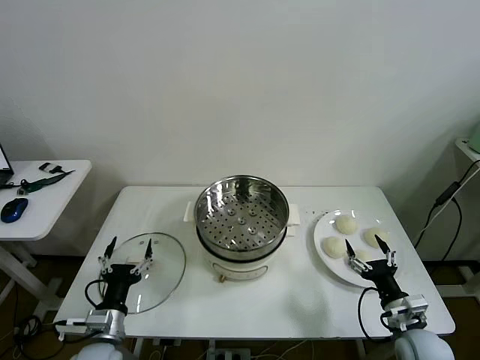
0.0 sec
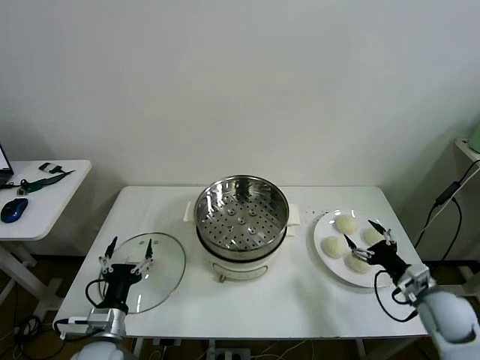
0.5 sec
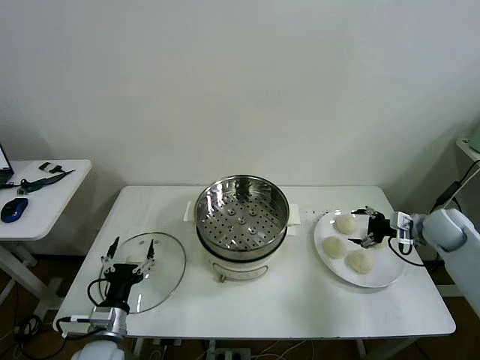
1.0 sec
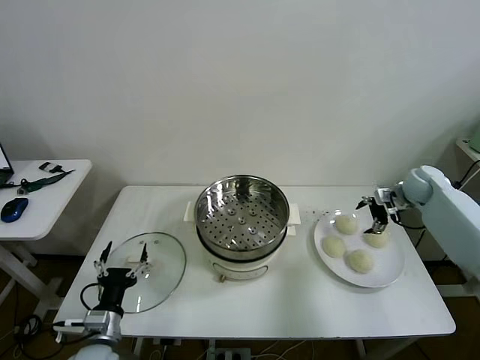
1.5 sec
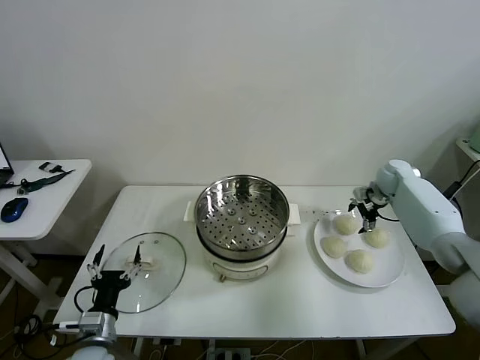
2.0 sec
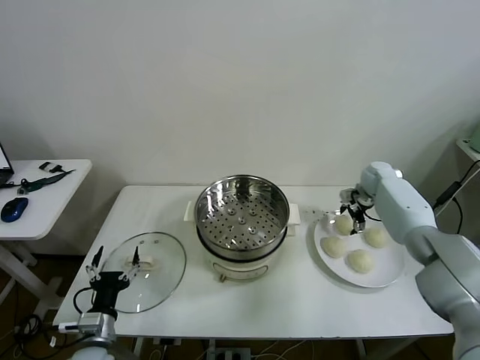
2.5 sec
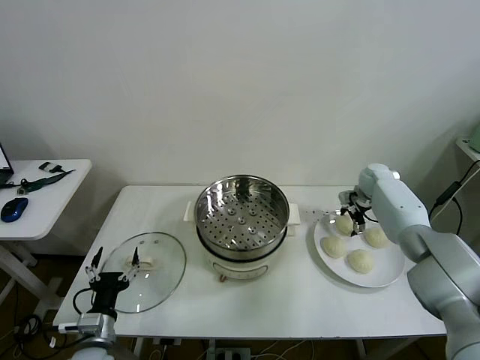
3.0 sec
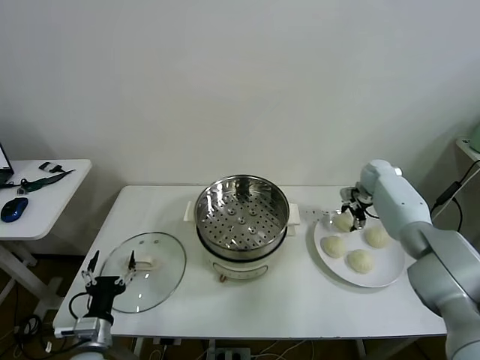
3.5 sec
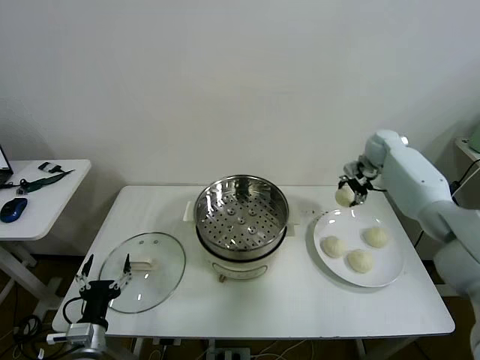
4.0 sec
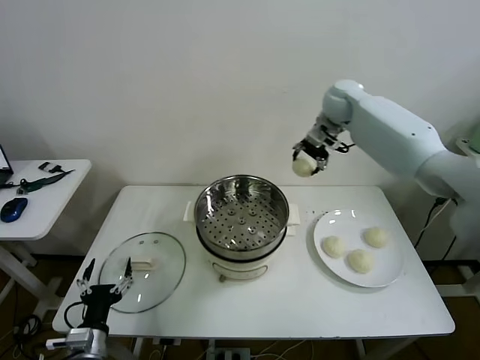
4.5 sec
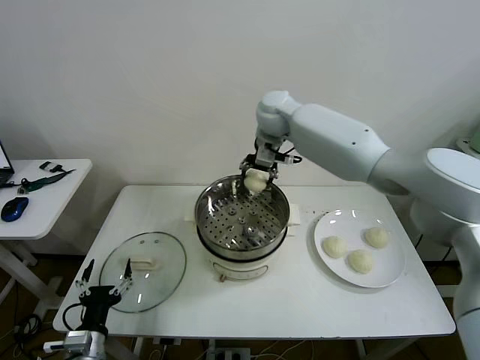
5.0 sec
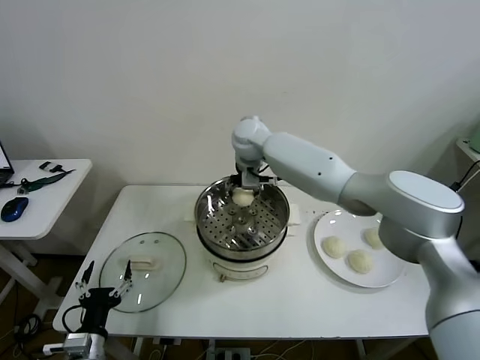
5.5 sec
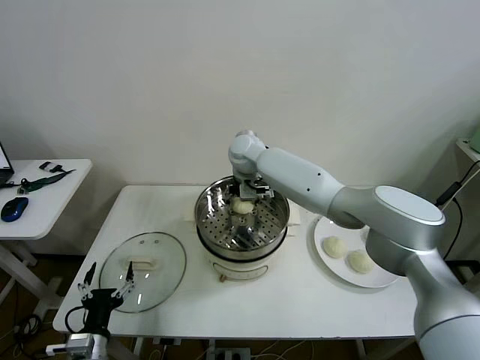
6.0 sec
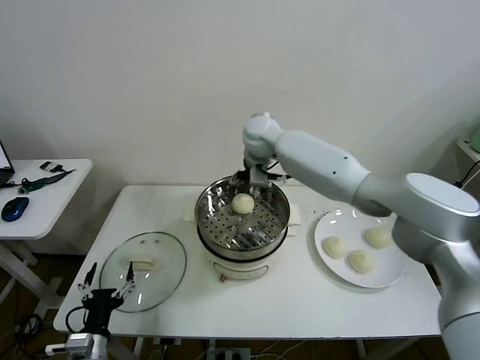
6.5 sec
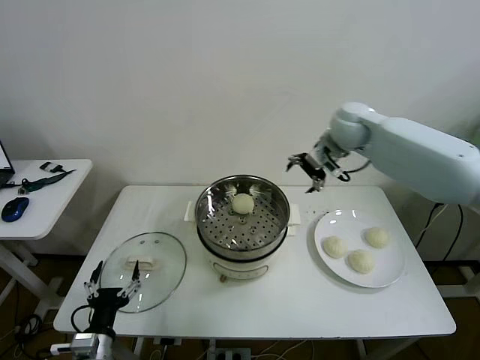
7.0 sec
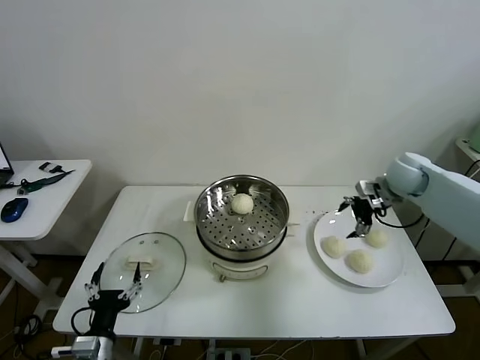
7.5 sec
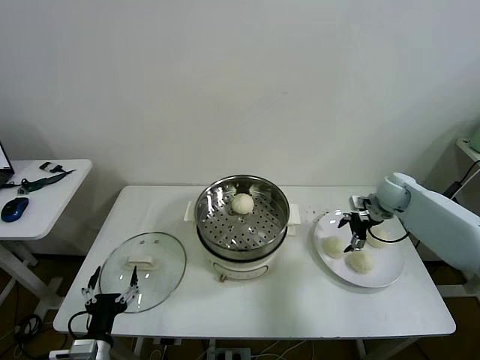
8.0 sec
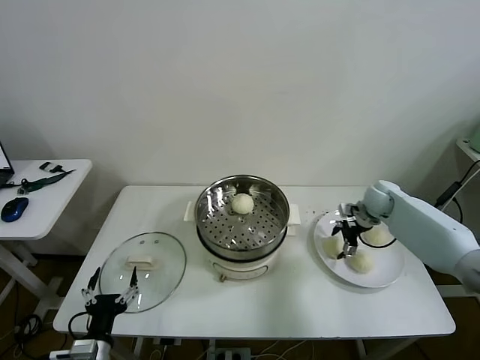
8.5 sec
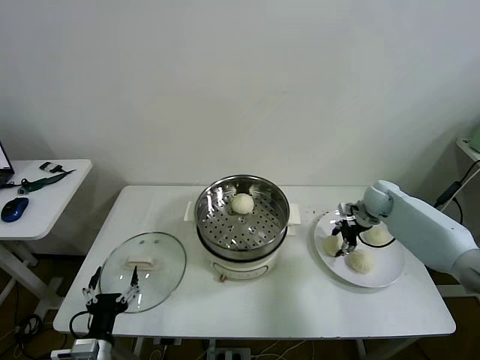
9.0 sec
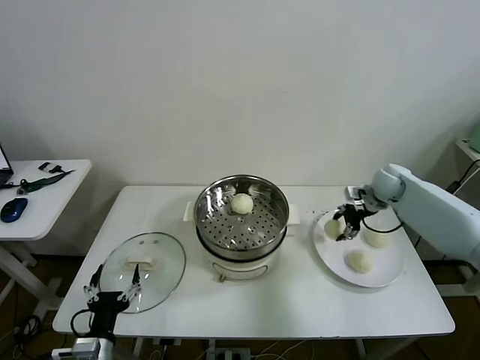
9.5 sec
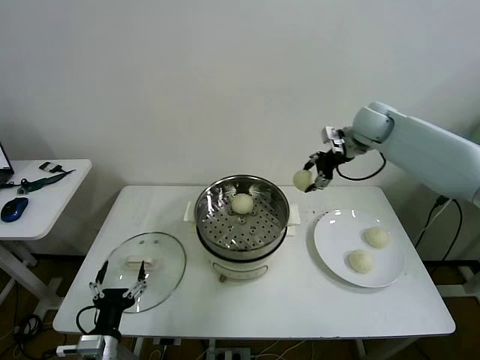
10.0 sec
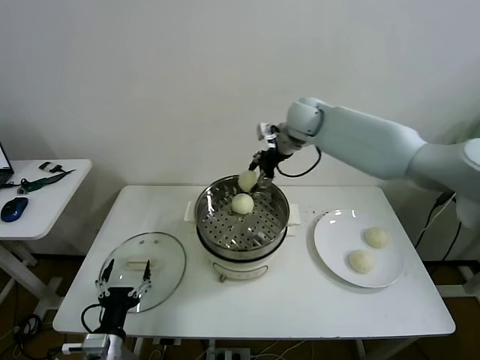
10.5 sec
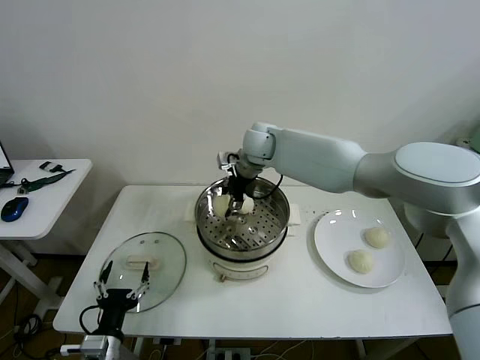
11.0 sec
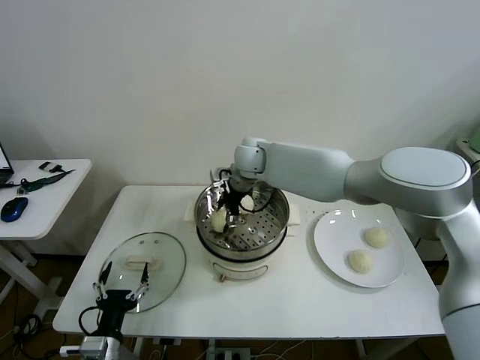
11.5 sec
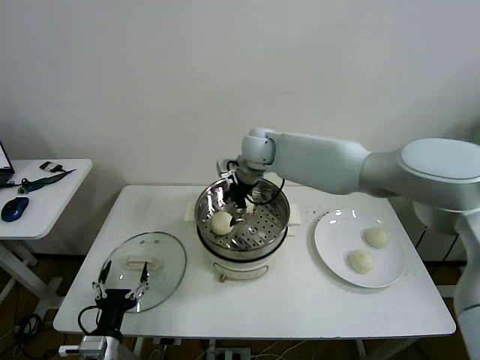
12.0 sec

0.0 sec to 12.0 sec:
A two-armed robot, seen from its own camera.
Task of the whole recording: take steamed baozi put them in steamer then cover it.
Step, 0.0 sec to 3.0 sec: Grasp the baozi in the plate with right gripper.
Step, 3.5 sec to 6.0 sec: Place the baozi on the steamer with right gripper.
Step, 6.5 sec to 8.5 sec: Grasp the baozi in the plate with right gripper.
Step, 9.0 sec to 11.5 sec: Place the baozi on the steamer with right gripper.
2.0 sec to 4.0 sec: The right gripper travels upward and to the left by approximately 10 cm, and closes.
4.0 sec to 6.0 sec: The right gripper shifts some 35 cm to the left, and opens its fingers.
6.0 sec to 8.0 sec: The right gripper moves to the right, roughly 40 cm.
8.0 sec to 10.0 sec: The right gripper goes approximately 20 cm upward and to the left, and closes.
10.0 sec to 12.0 sec: The right gripper shifts roughly 25 cm to the left, and opens its fingers.

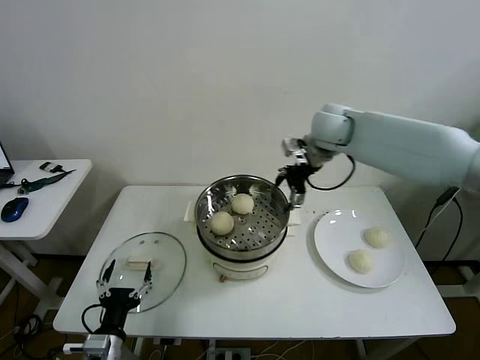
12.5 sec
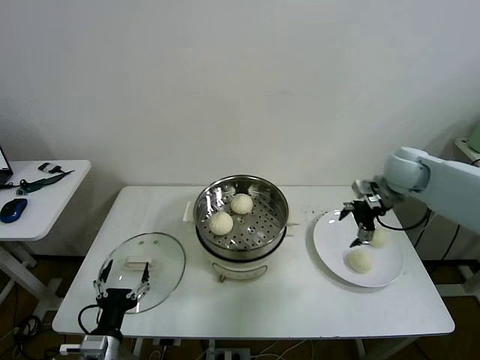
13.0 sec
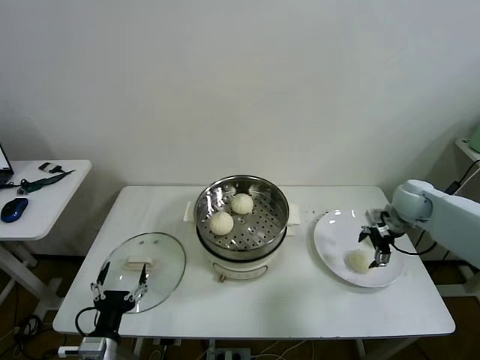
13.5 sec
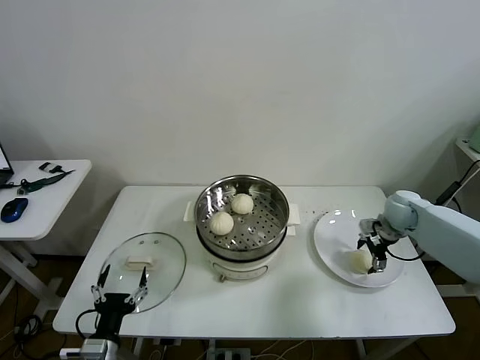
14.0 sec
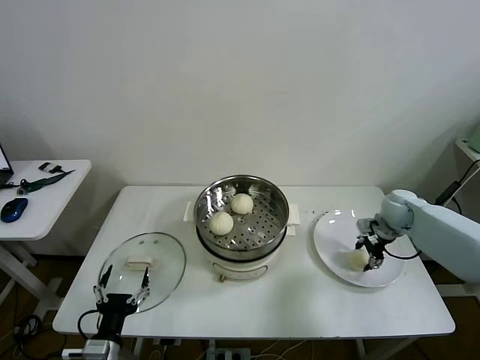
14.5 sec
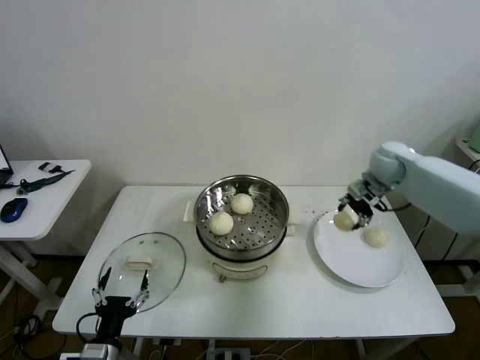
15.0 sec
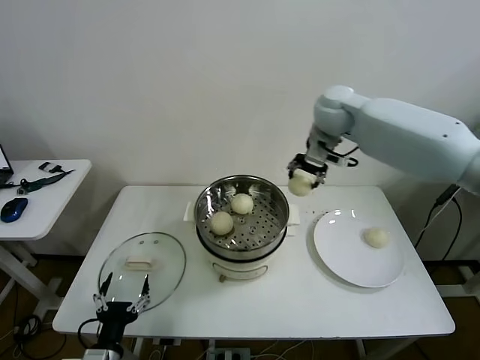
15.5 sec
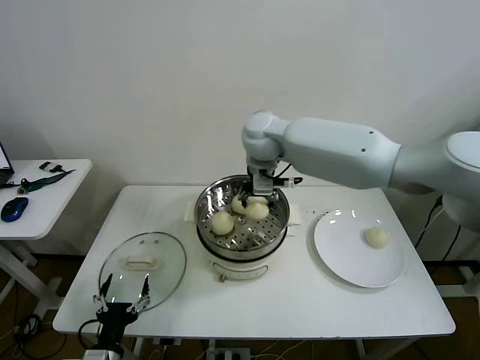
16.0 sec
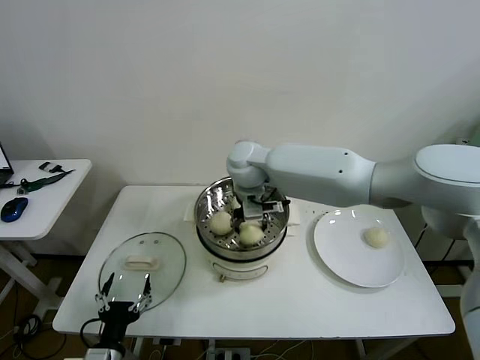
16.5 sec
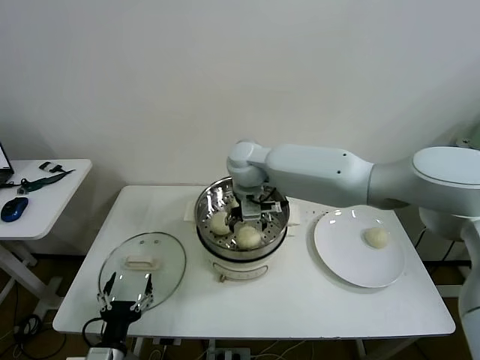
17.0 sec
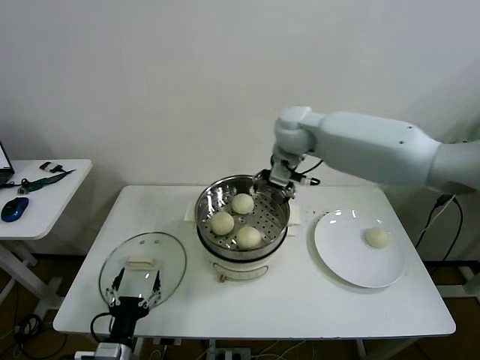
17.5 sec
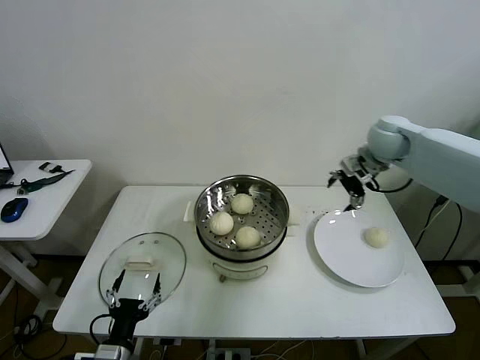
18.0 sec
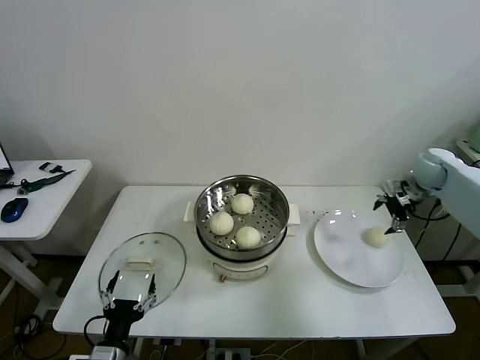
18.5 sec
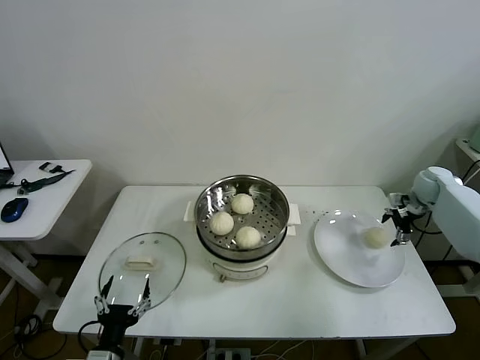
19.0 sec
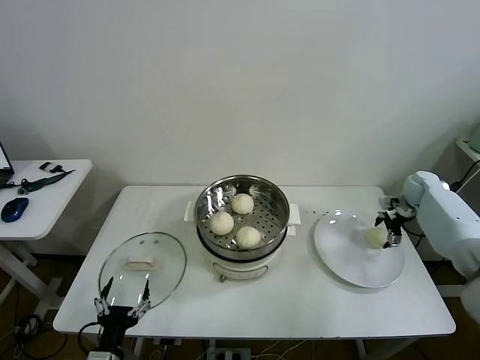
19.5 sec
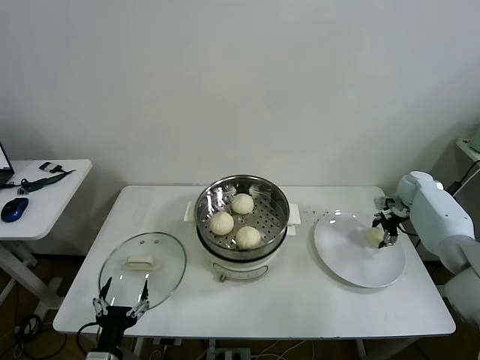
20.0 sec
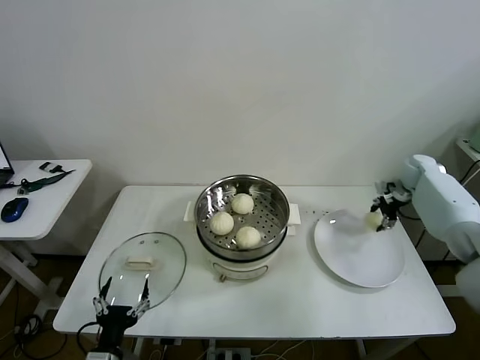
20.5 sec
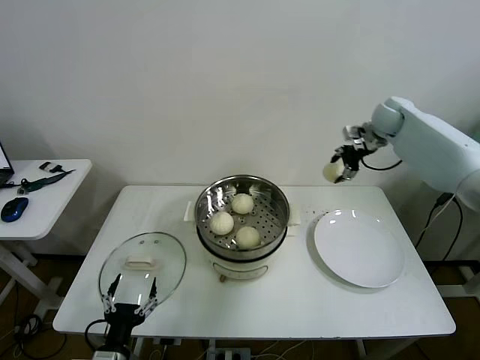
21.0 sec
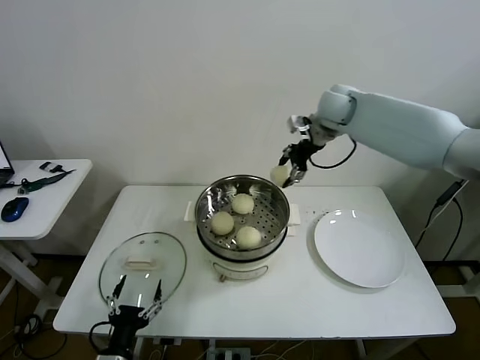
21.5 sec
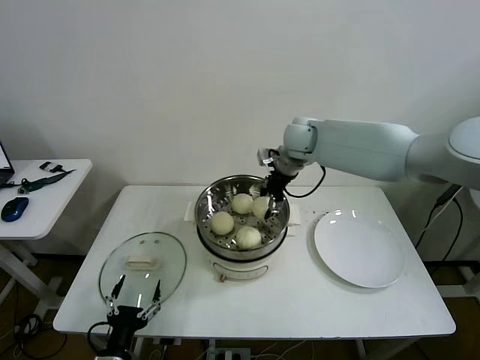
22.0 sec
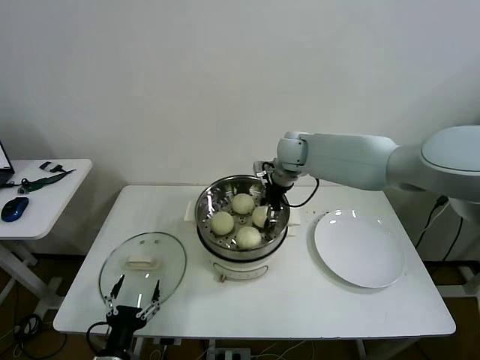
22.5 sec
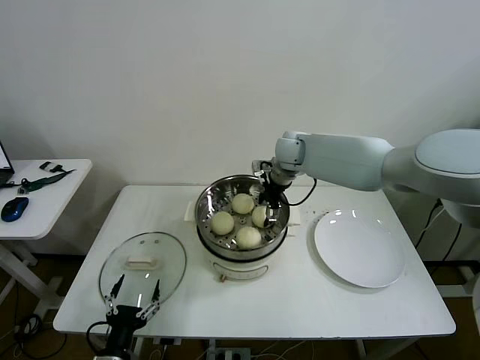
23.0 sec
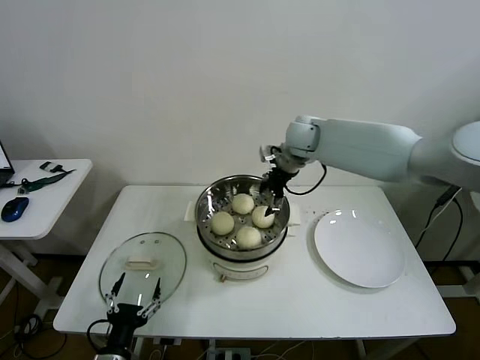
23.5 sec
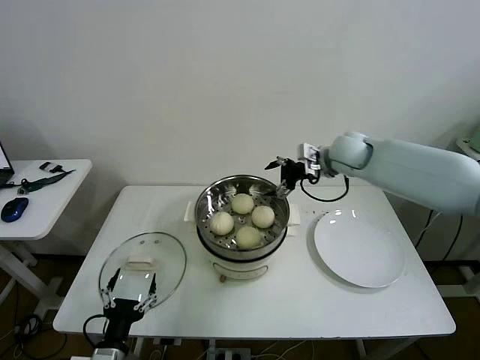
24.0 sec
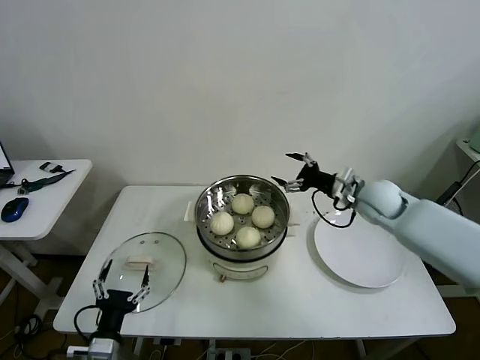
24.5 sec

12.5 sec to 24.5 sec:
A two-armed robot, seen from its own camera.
Task of the whole recording: take steamed baozi put them in steamer then cover it.
Step, 12.5 sec to 14.5 sec: Grasp the baozi in the plate with right gripper.
Step, 15.0 sec to 17.0 sec: Place the baozi on the steamer with right gripper.
Step, 17.5 sec to 20.0 sec: Grasp the baozi in the plate with right gripper.
Step, 20.5 sec to 23.0 sec: Place the baozi on the steamer with right gripper.
12.5 sec to 14.5 sec: The right gripper moves downward and to the right, roughly 30 cm, and closes.
14.5 sec to 16.5 sec: The right gripper heads to the left, covering roughly 40 cm.
16.5 sec to 18.5 sec: The right gripper travels to the right by roughly 50 cm, and opens up.
18.5 sec to 20.5 sec: The right gripper is displaced downward and forward by about 5 cm, and closes its fingers.
20.5 sec to 22.5 sec: The right gripper shifts roughly 35 cm to the left.
22.5 sec to 24.5 sec: The right gripper travels to the right and backward by some 20 cm, and opens.

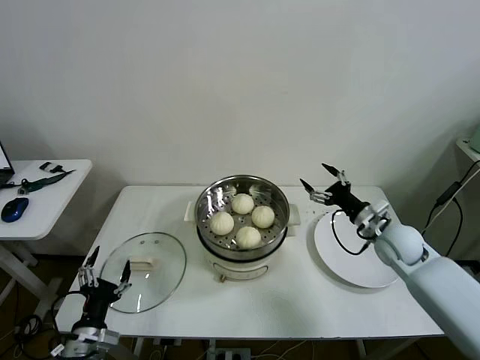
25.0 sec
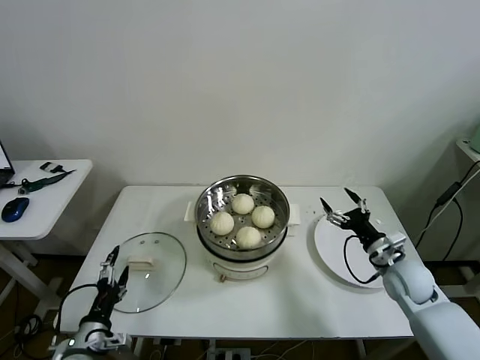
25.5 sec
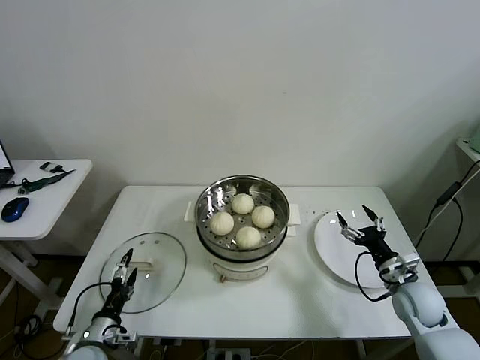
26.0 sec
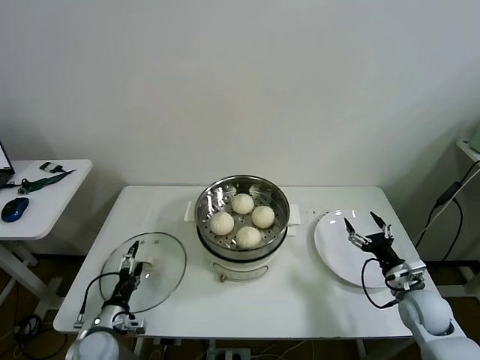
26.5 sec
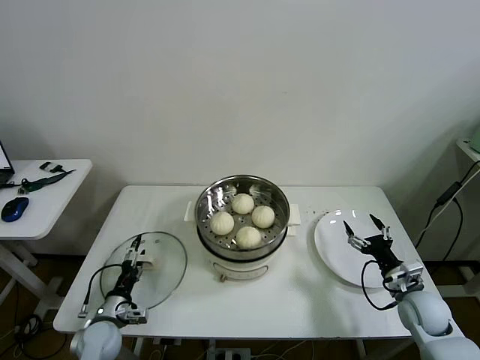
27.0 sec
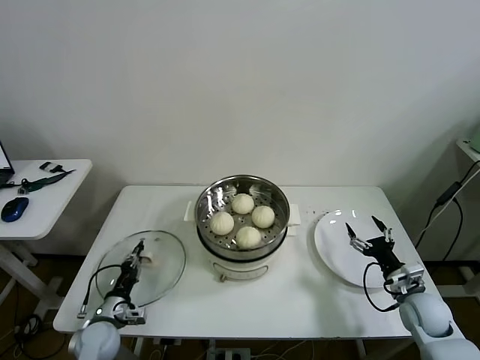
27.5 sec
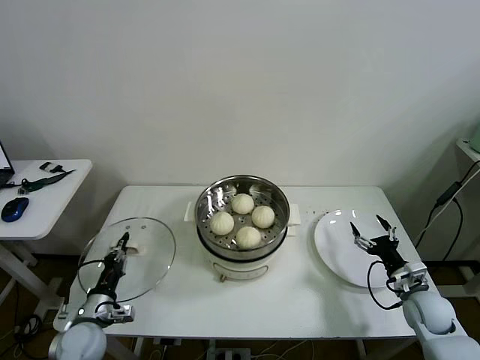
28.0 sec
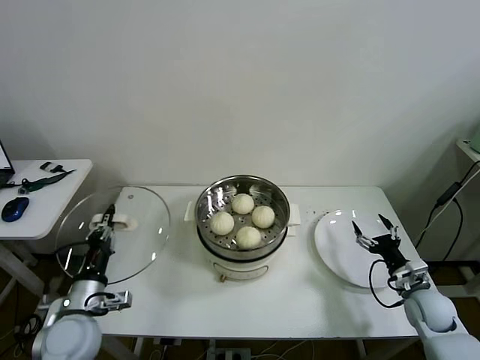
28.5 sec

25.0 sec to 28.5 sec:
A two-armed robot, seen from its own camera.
Task of the whole recording: take steamed baozi put them in steamer then cover it.
Step, 25.0 sec to 27.5 sec: Grasp the pot lid with left gripper.
25.0 sec to 27.0 sec: The right gripper heads backward, downward and to the right, covering roughly 15 cm; the left gripper goes about 15 cm forward and downward.
27.0 sec to 28.5 sec: The left gripper is displaced upward by about 15 cm, and closes its fingers.
